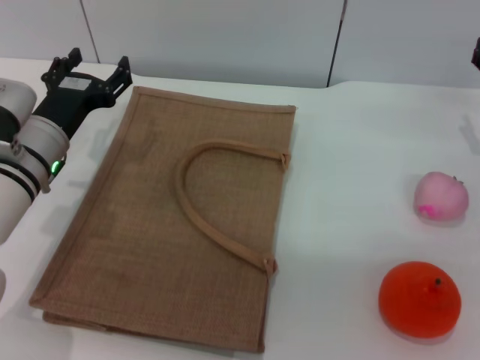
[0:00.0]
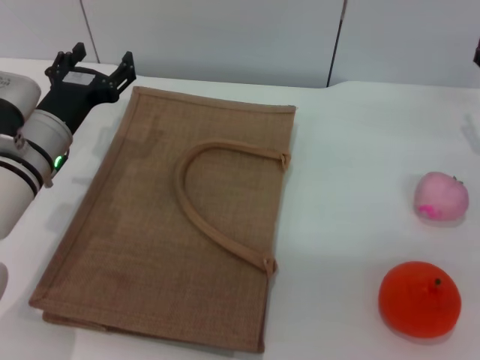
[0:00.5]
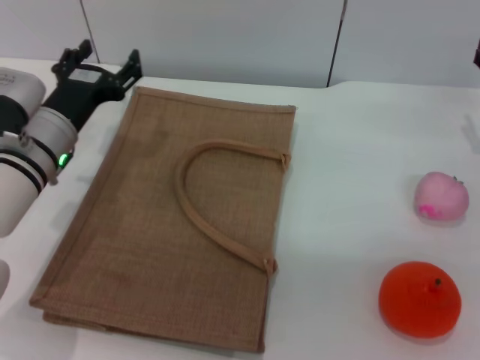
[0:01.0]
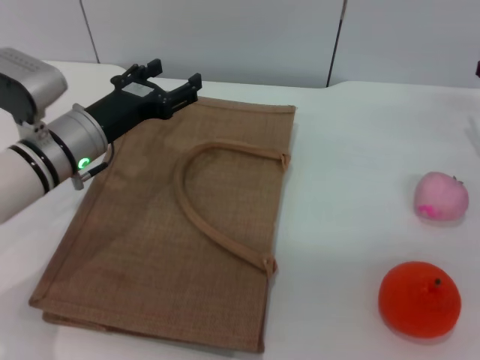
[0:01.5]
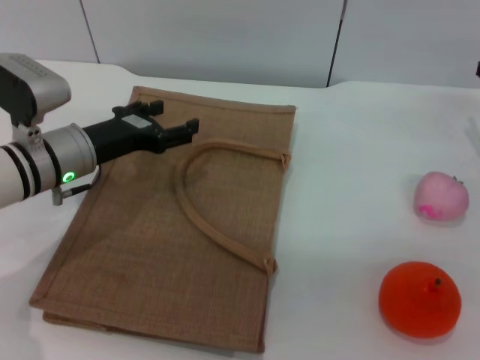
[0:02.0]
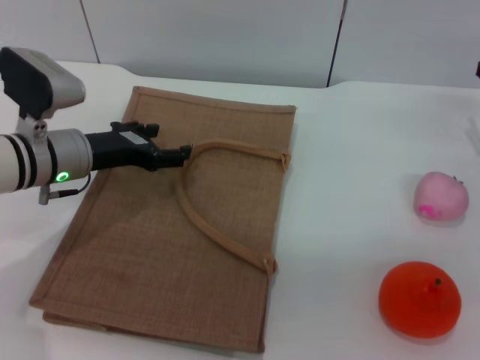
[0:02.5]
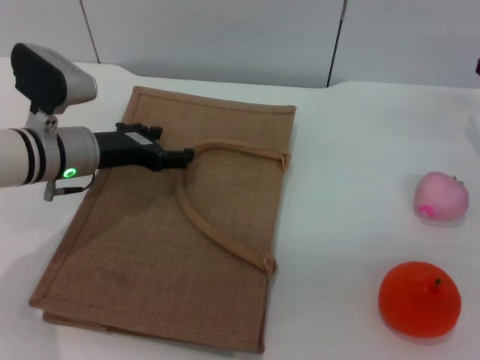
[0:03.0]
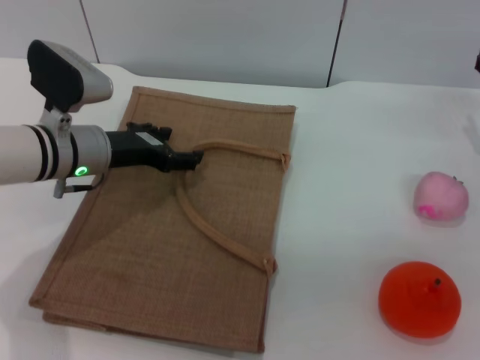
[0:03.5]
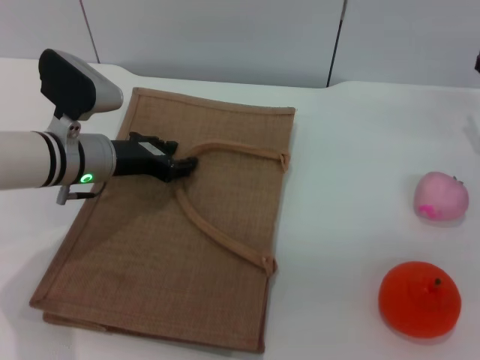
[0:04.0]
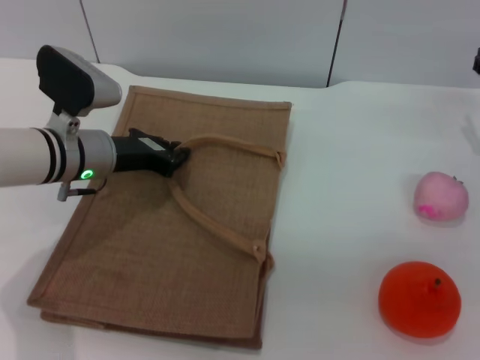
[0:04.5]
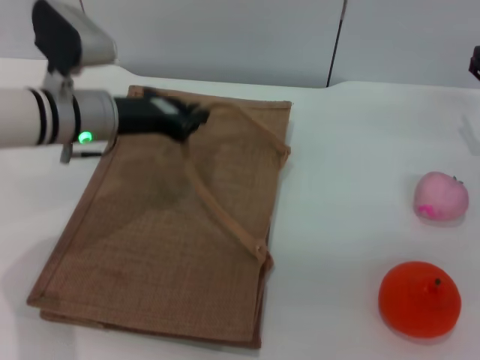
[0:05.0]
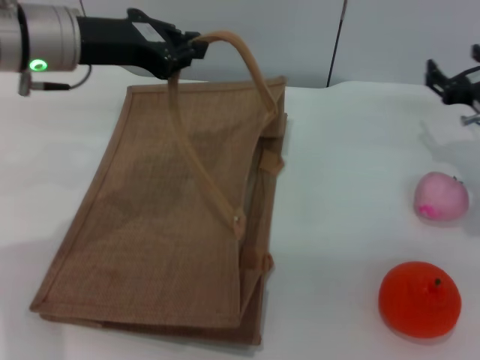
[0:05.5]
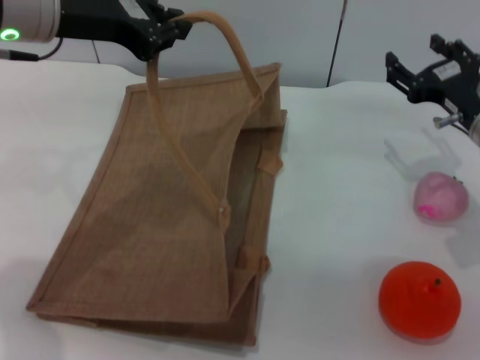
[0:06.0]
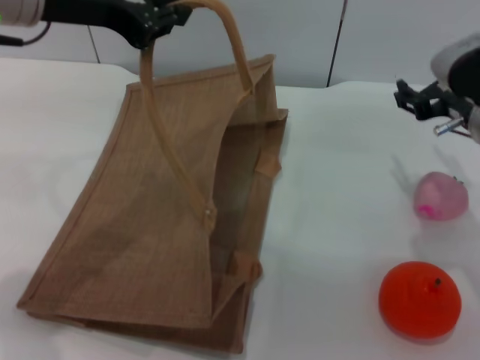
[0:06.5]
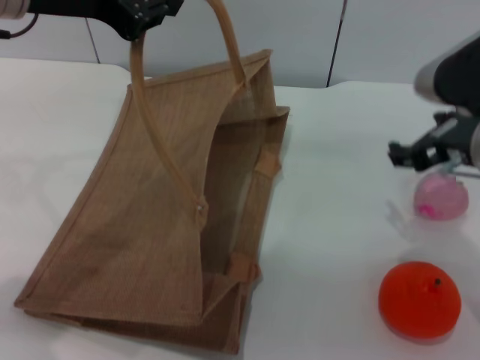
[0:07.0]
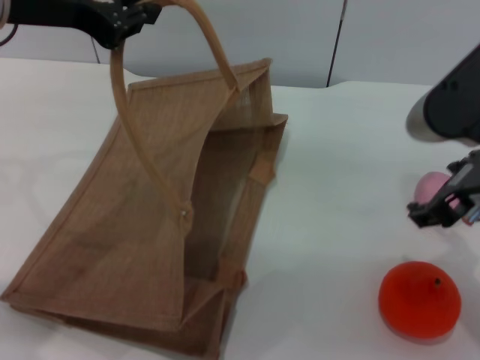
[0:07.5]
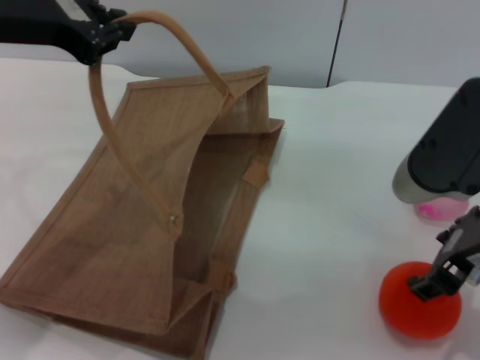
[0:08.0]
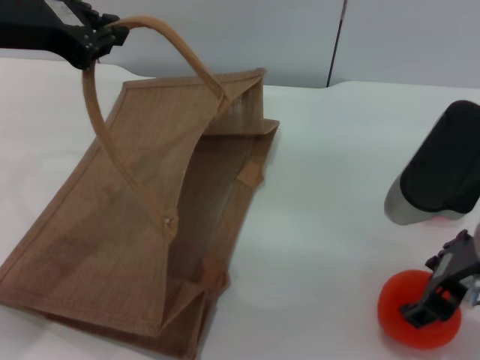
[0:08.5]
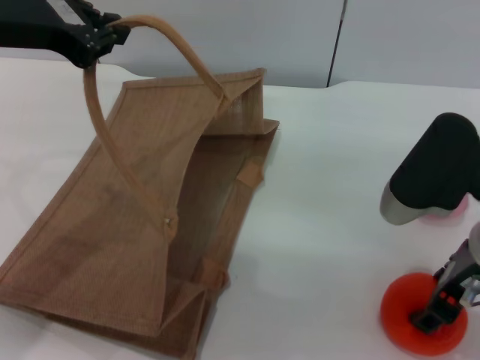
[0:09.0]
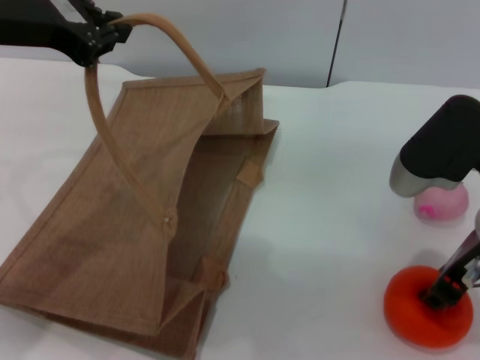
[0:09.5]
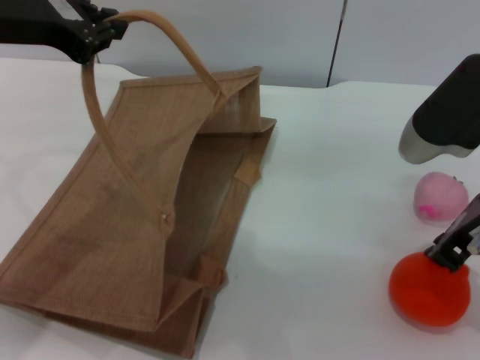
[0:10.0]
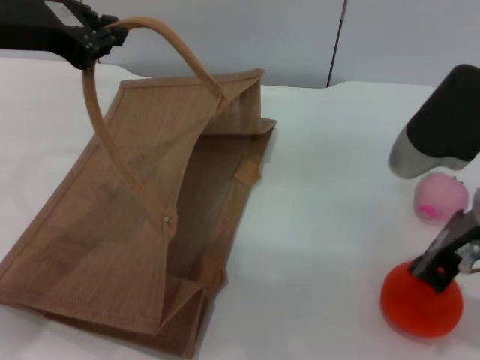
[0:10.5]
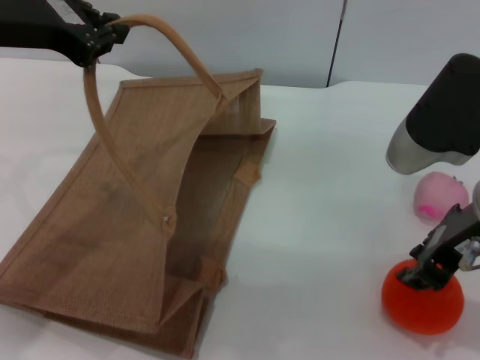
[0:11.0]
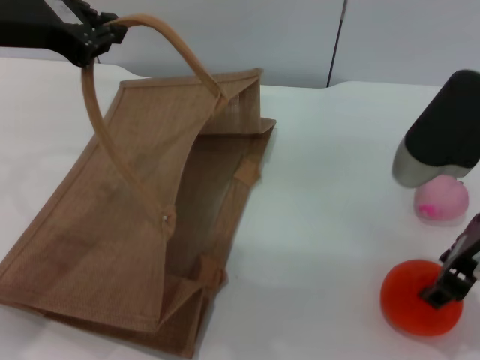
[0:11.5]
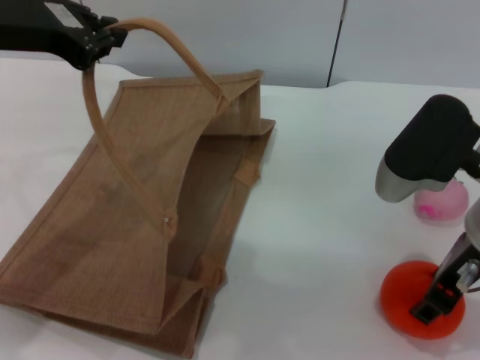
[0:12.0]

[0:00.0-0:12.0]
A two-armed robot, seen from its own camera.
Task of the whole recording: pick up the orange and peach from the table and place it in the brown handbag.
Step, 0:00.0 to 0:05.0: Lift the woven bag with the left gripper to open it.
0:02.0 to 0:04.0: The grippers stay close to where they were, moving slightly.
0:04.0 to 0:06.0: The left gripper is displaced upward by about 20 cm, and closes up, while the right gripper travels to the left by roughly 5 cm.
0:06.0 to 0:08.0: The right gripper shifts approximately 15 cm backward, upward and to the left.
0:08.0 to 0:10.0: The right gripper closes up.
0:10.0 to 0:12.0: The right gripper opens up.

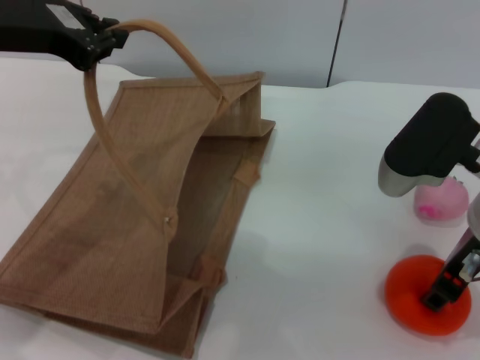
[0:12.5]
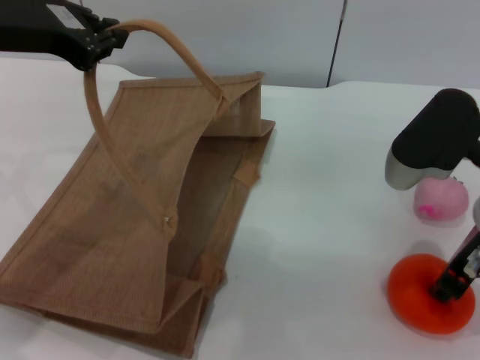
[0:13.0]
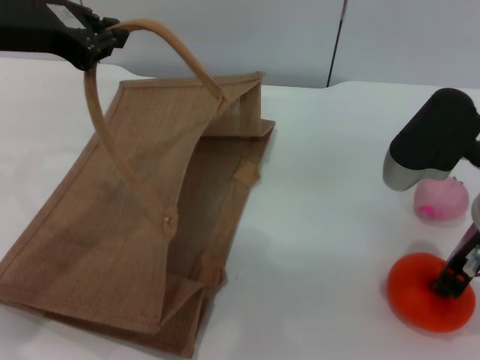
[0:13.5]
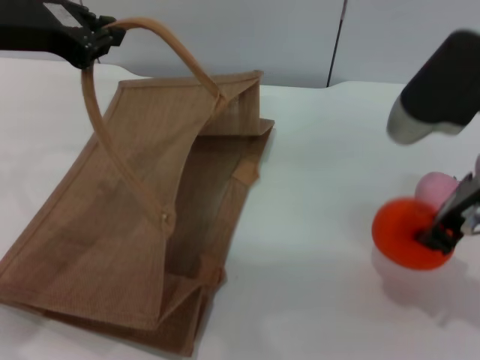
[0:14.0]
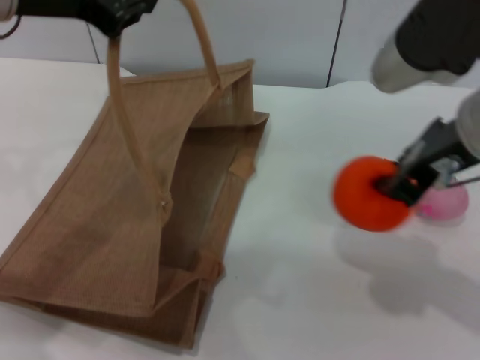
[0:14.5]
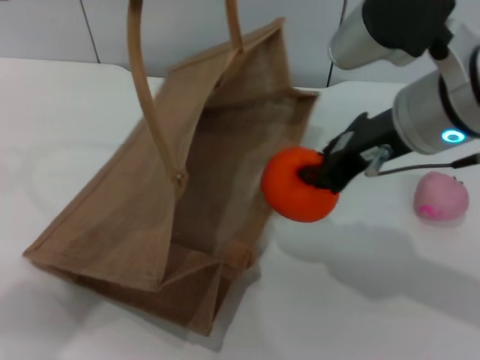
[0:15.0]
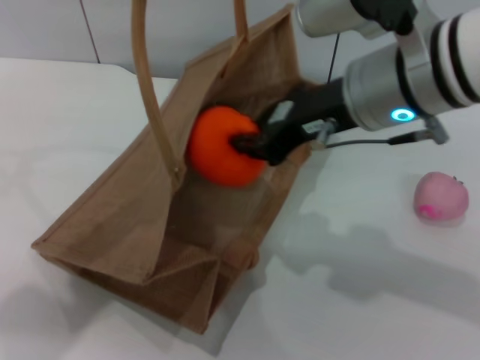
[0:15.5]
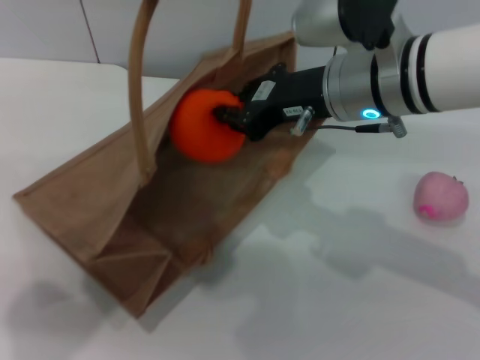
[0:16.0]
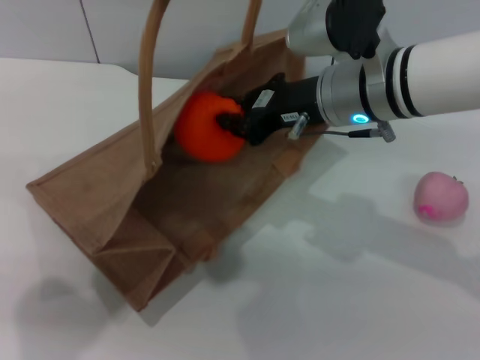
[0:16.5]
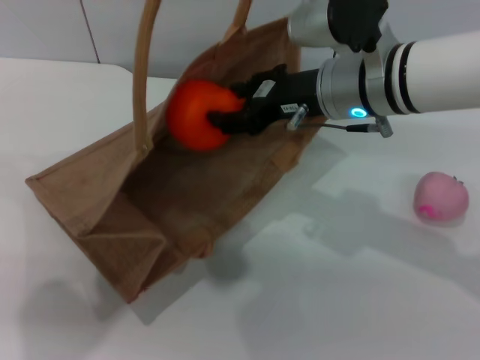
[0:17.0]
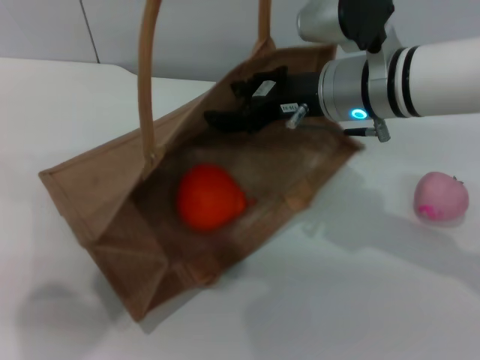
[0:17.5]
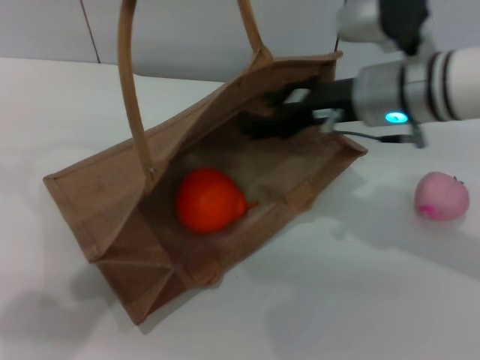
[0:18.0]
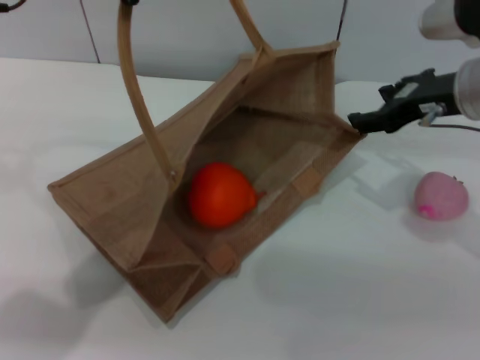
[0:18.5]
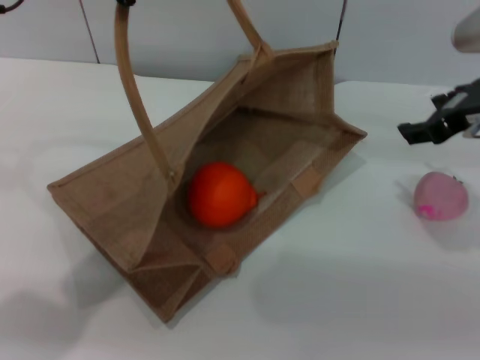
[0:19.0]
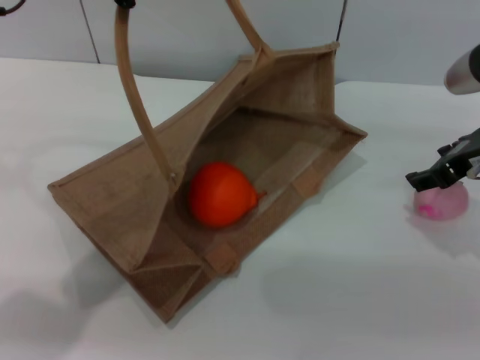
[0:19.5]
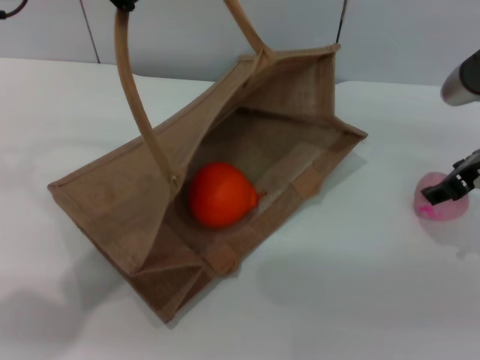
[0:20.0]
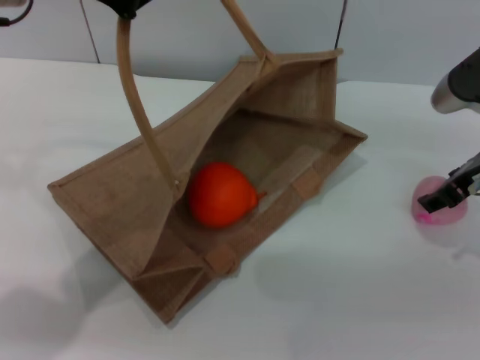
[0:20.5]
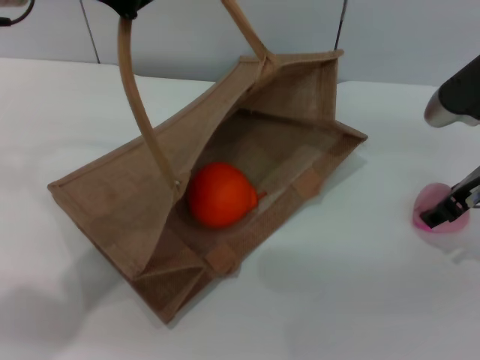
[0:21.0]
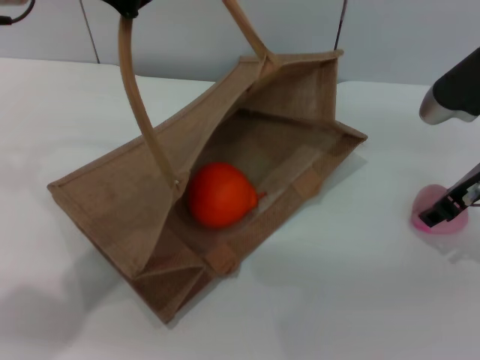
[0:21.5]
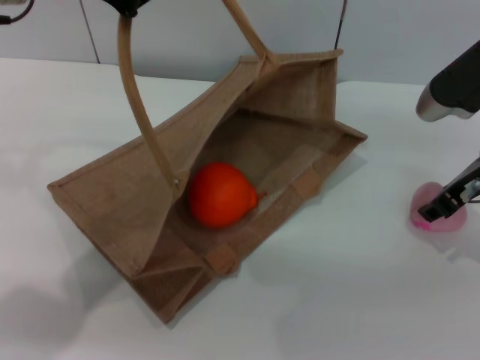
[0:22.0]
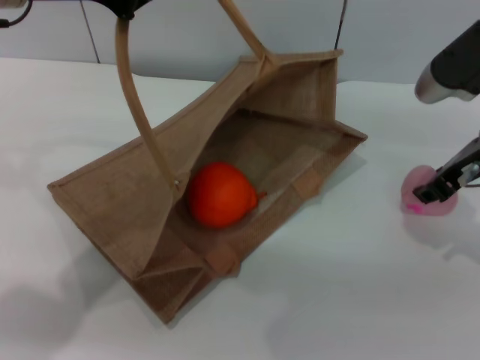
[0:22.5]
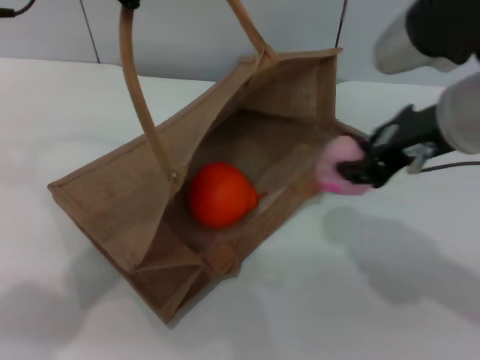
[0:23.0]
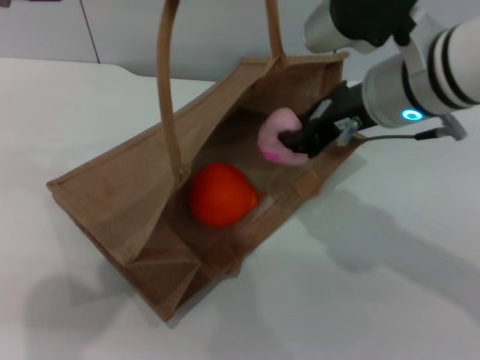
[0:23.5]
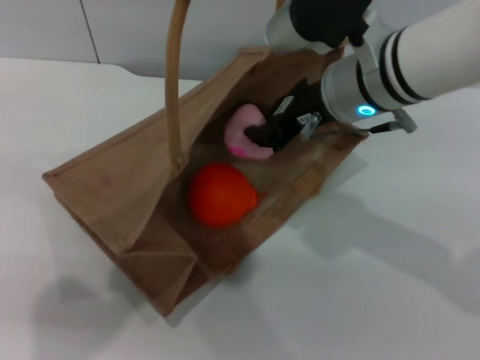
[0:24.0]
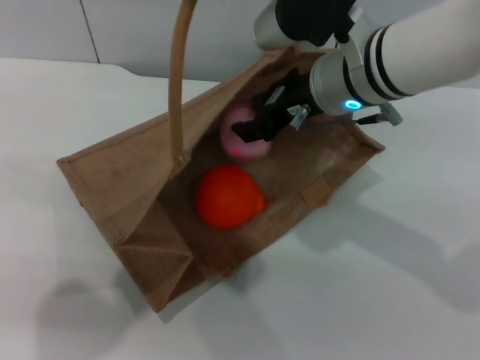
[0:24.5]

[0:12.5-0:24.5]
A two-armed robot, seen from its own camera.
Task of the whole recording: pick up the orange and peach from the table and place it in the brown handbag.
Step, 0:12.5 to 0:14.5: Pick up the orange with the right gripper.
Step, 0:15.0 to 0:18.5: Place the orange into the woven bag with the right gripper.
Step, 0:19.0 to 0:22.5: Pick up the peach with the right gripper.
0:12.5 to 0:14.5: The right gripper moves upward, about 10 cm, and closes up.
0:14.5 to 0:16.5: The right gripper moves forward, downward and to the left, about 15 cm, while the left gripper changes place by some 5 cm.
0:16.5 to 0:18.5: The right gripper travels to the right by about 10 cm, and opens.
0:18.5 to 0:20.5: The right gripper moves approximately 5 cm.
0:20.5 to 0:22.5: The right gripper closes up.
0:22.5 to 0:24.5: The left gripper heads to the right, covering about 5 cm; the right gripper heads to the left, covering approximately 15 cm.

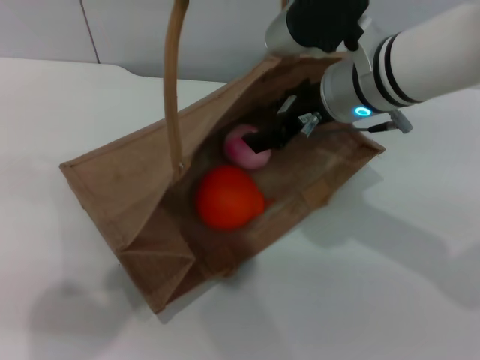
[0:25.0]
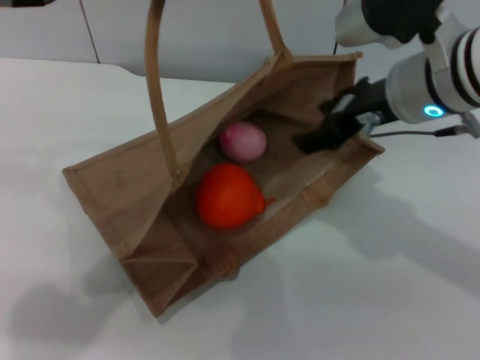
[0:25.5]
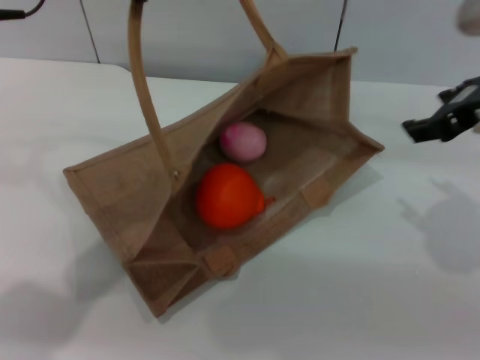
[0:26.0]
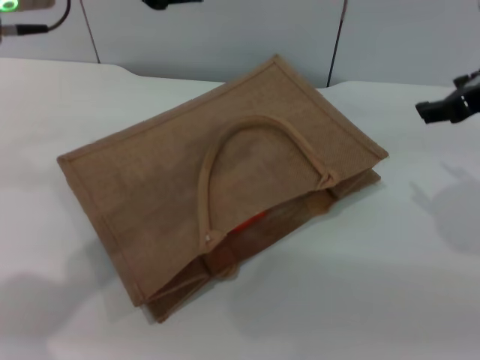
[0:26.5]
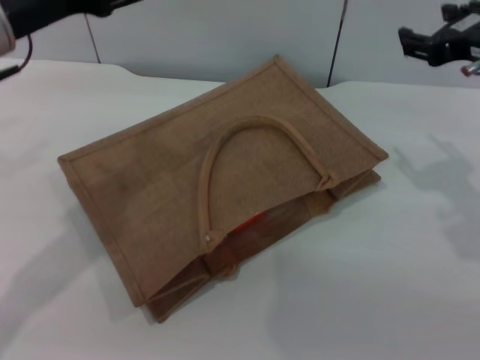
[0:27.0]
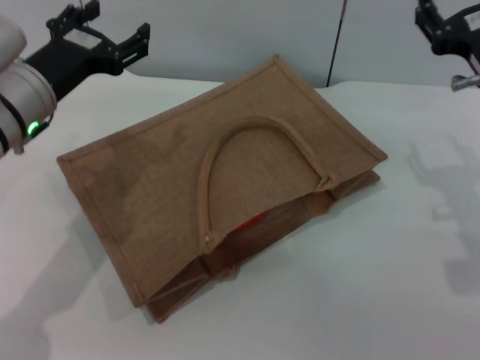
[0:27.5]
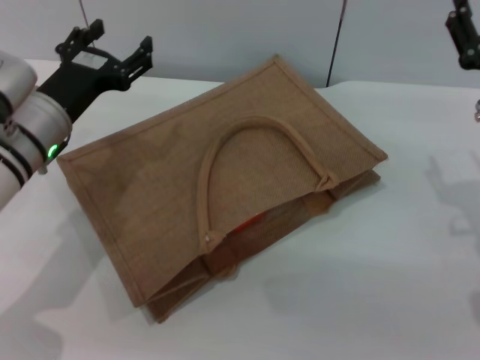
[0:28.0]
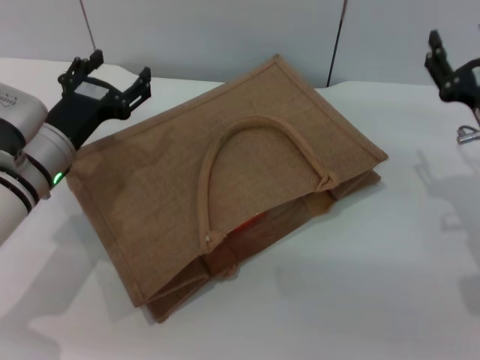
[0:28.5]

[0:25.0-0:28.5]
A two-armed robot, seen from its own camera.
Task of the whole recording: pick up the orange and peach from the table and place it in the brown handbag.
Step, 0:26.0 to 0:26.5: Lower the woven bag with the left gripper to close it.
0:25.0 to 0:27.0: The right gripper travels to the right by roughly 15 cm. The left gripper shifts some 15 cm downward and to the left, and opens.
0:27.0 to 0:28.5: Both grippers move downward, some 15 cm.
